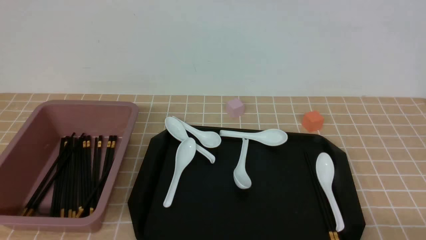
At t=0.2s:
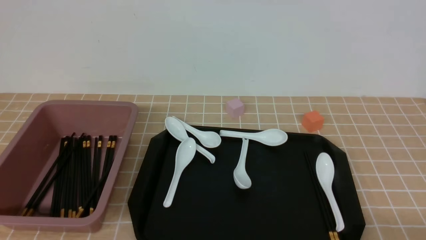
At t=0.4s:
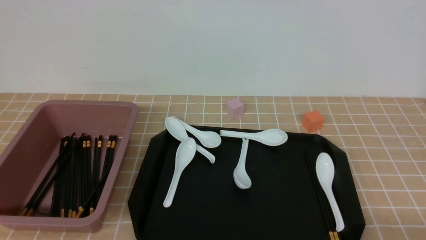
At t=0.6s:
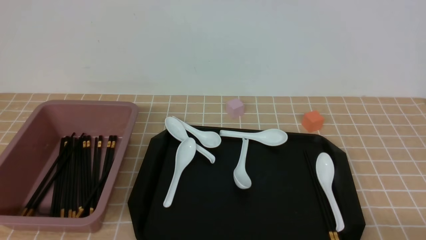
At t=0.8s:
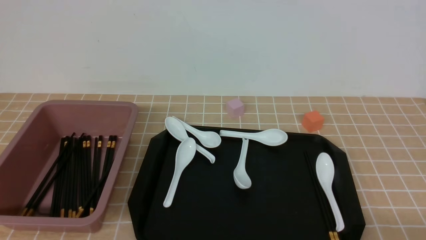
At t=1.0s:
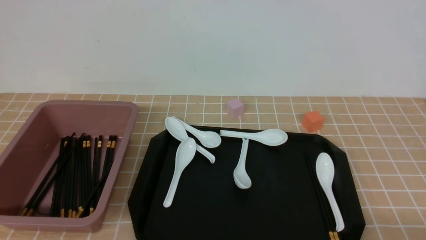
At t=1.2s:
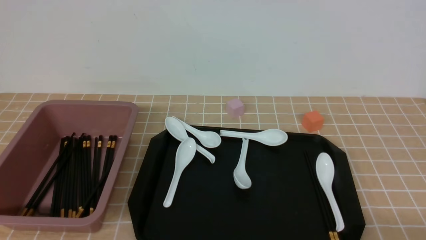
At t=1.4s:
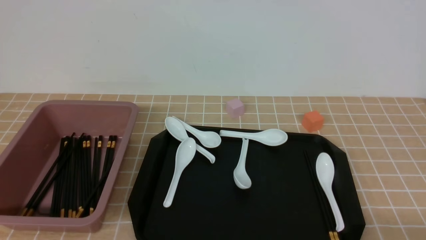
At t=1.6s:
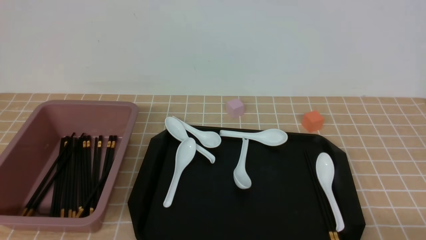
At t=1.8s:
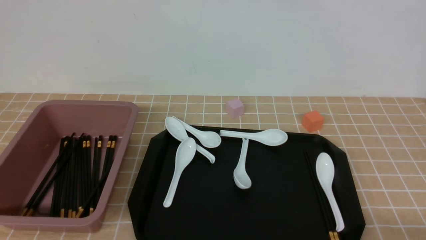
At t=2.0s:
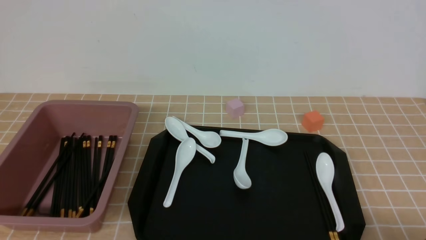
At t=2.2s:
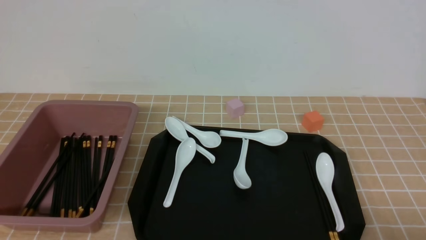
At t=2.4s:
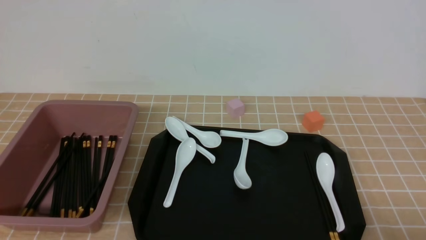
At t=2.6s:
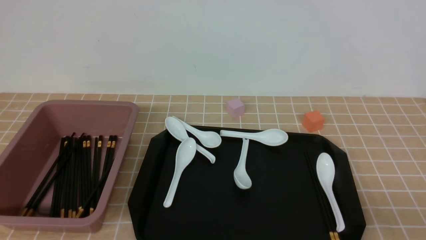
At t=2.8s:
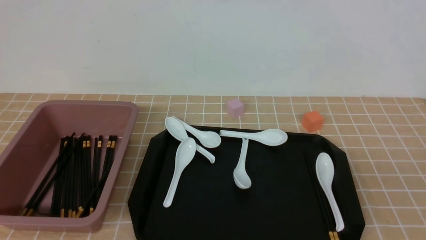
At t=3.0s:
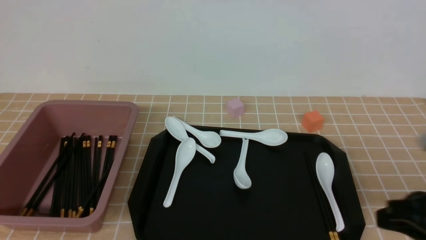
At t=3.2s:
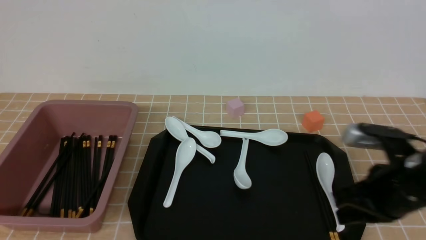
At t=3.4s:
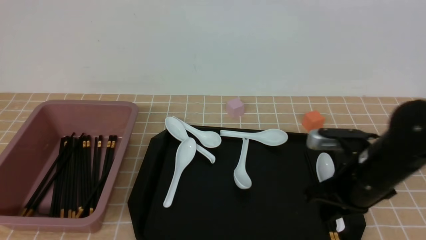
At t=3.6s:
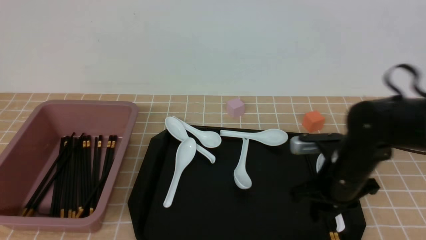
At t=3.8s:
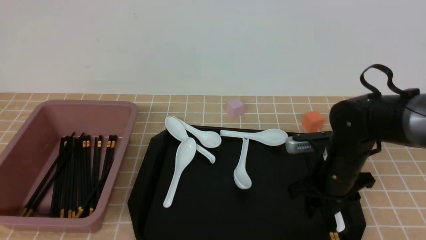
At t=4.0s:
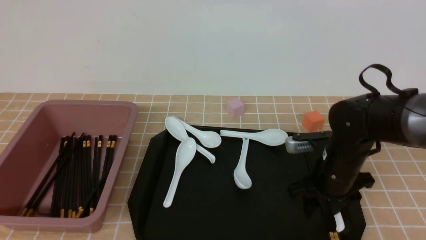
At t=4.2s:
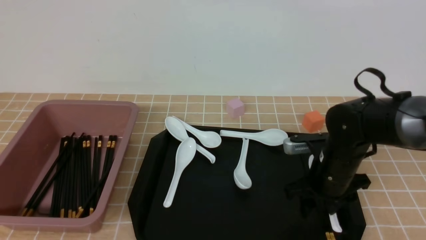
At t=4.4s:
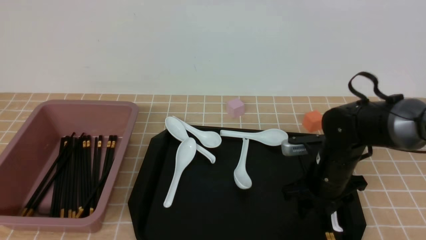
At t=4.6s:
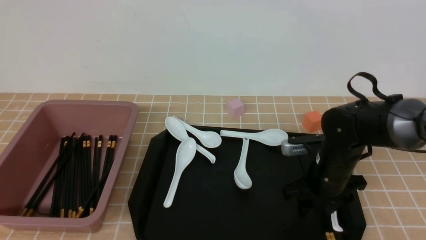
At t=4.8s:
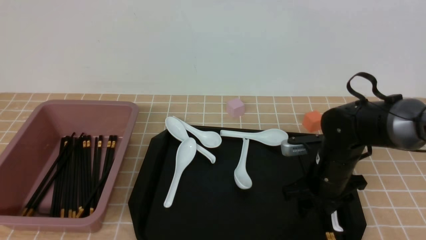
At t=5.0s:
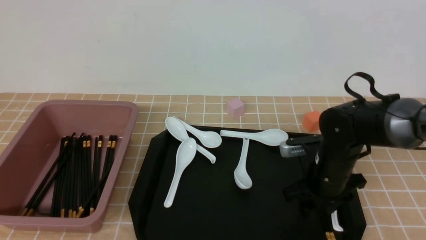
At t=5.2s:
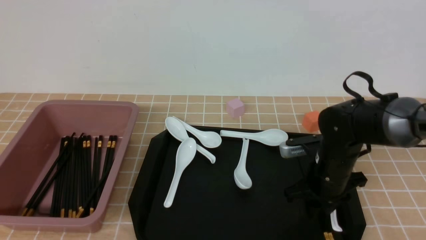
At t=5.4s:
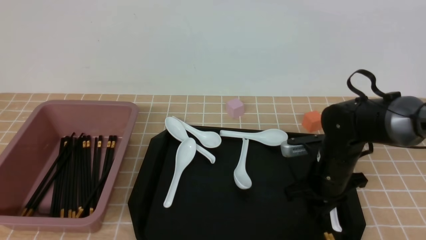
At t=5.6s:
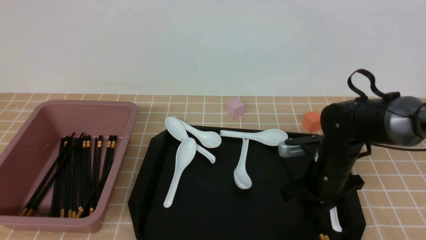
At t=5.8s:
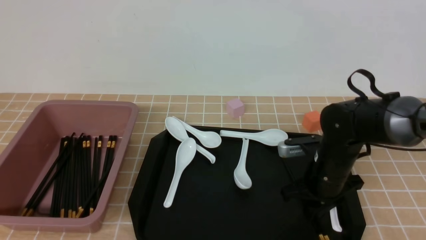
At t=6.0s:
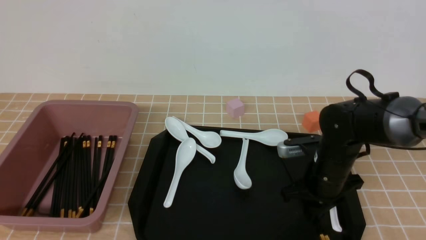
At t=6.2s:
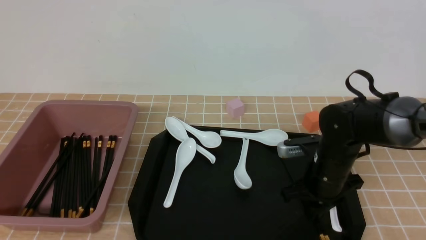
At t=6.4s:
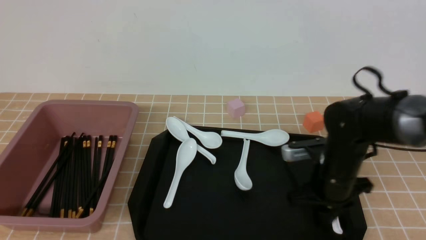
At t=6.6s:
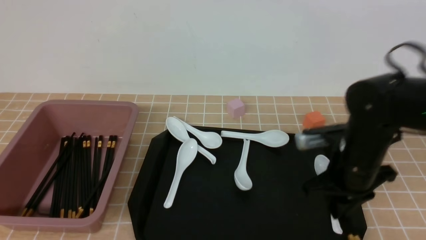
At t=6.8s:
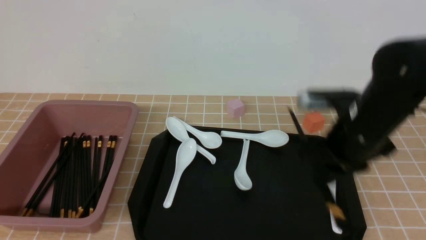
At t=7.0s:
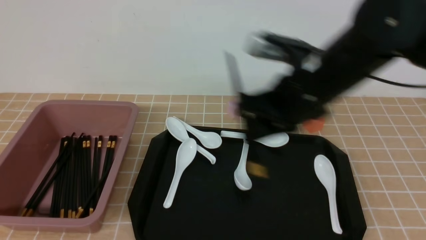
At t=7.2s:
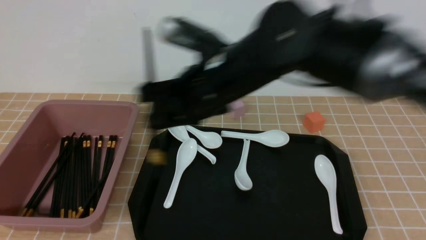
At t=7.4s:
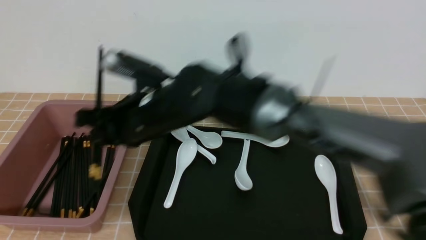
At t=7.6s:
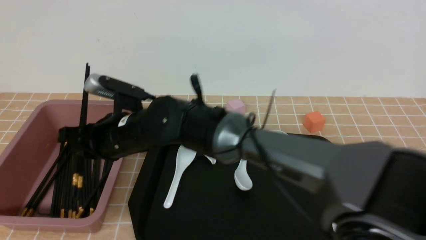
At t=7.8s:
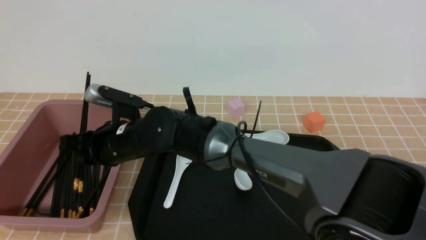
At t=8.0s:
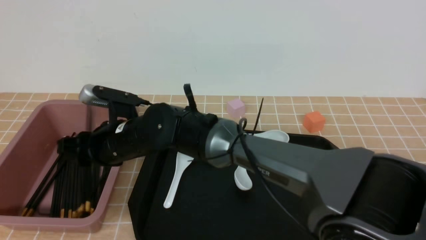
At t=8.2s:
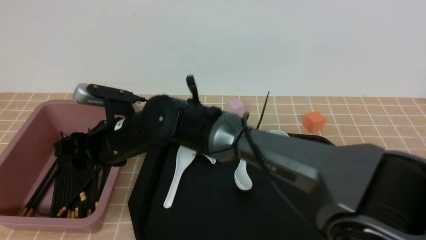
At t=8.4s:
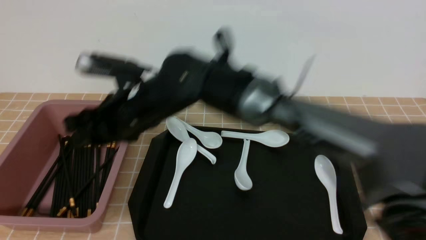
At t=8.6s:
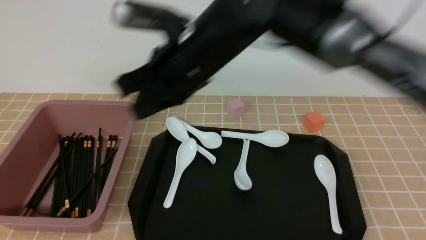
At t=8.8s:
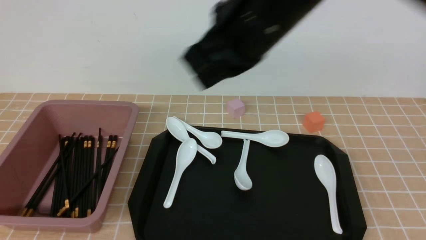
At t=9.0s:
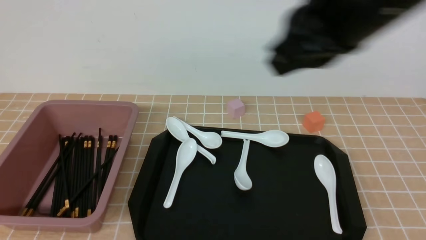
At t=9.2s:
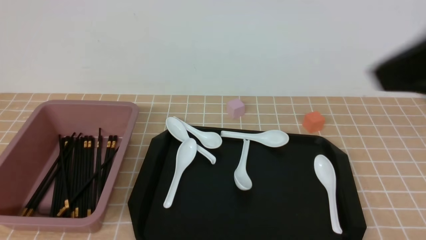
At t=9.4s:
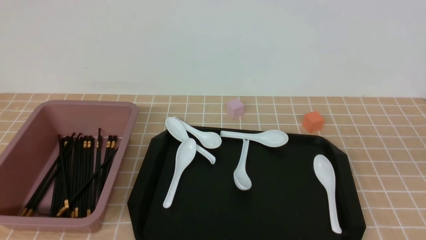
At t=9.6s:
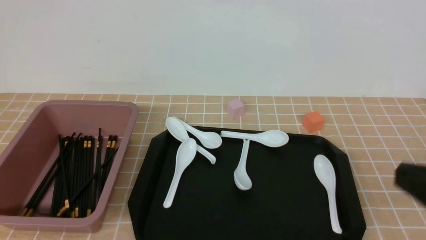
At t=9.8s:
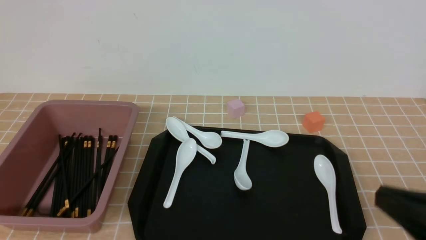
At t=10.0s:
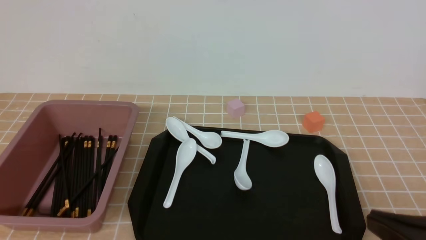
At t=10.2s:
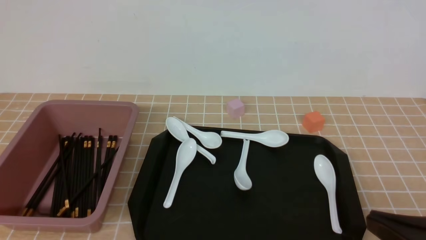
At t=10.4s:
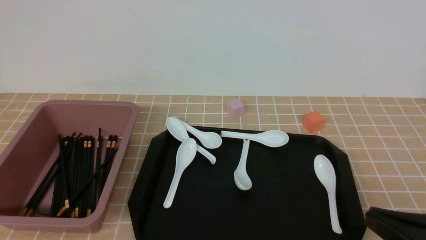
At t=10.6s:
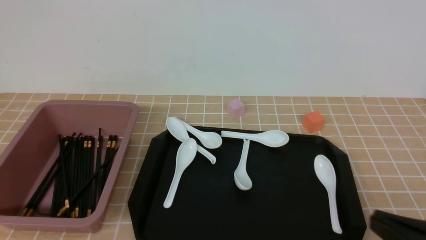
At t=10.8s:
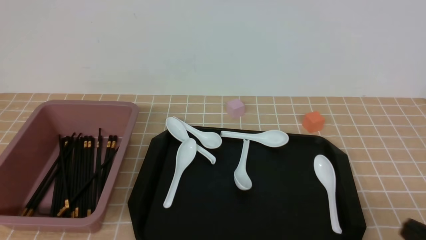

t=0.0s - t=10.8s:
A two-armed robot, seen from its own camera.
Step, t=0.0s - t=6.8s: use the right arm to grab a pair of chopsticks.
Step, t=7.0s - t=8.4s: use the right arm to put the chopsticks into the lunch box.
t=1.6s - t=3.0s: The right gripper moves upward and forward, approximately 15 cm, and closes up.
t=3.0s - t=4.6s: The right gripper moves forward, downward and to the left, roughly 25 cm, and opens its fingers.
t=4.6s - t=6.2s: The right gripper closes its fingers.
t=6.2s - t=7.8s: The right gripper travels to the left by some 30 cm.
t=7.8s - t=9.2s: The right gripper goes approximately 40 cm to the right, upward and backward, and closes.
t=9.2s - t=10.8s: The right gripper travels downward and to the right by about 25 cm.

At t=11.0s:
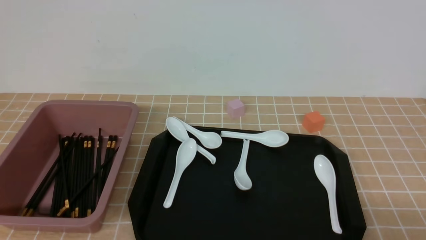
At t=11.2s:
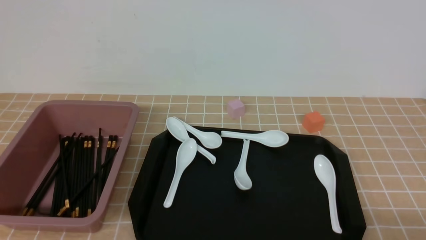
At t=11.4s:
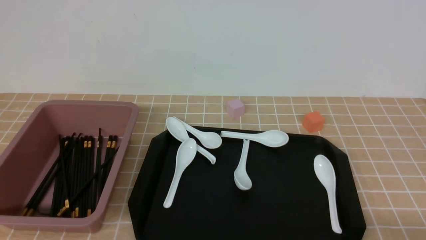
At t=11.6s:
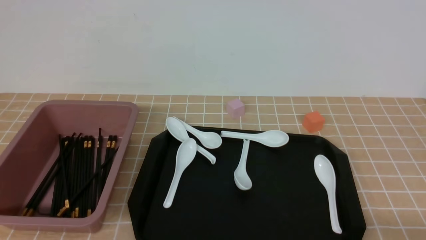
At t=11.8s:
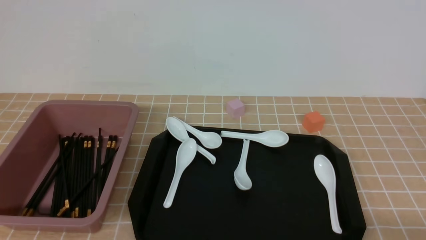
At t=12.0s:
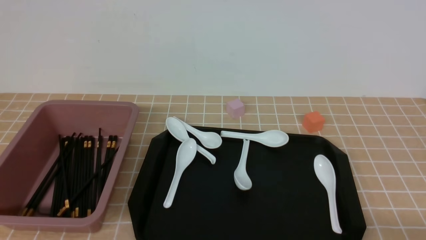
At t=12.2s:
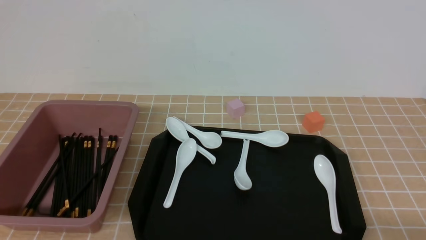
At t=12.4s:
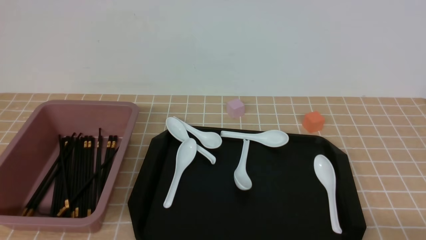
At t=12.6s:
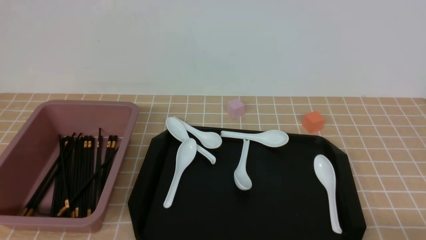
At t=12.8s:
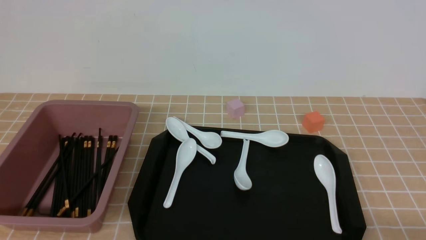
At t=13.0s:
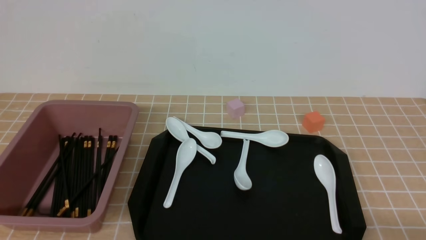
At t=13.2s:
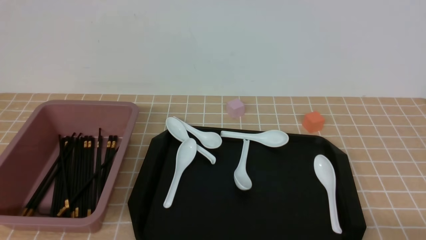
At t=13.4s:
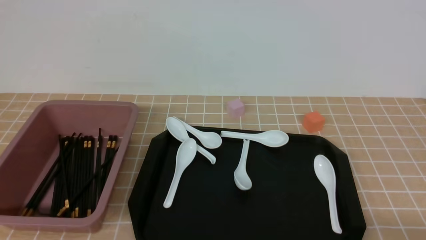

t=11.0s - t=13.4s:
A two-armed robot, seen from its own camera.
t=12.2s - t=13.4s: Both grippers stay put.
